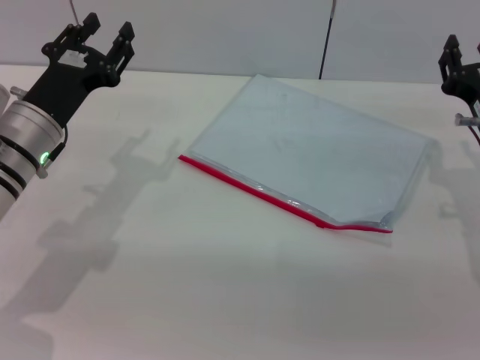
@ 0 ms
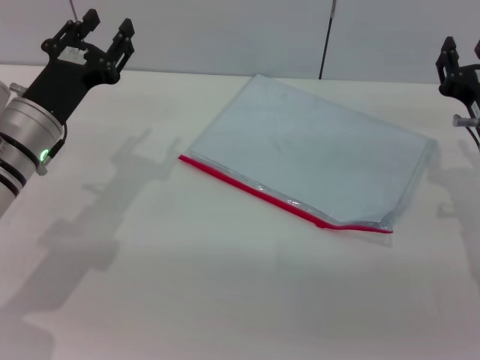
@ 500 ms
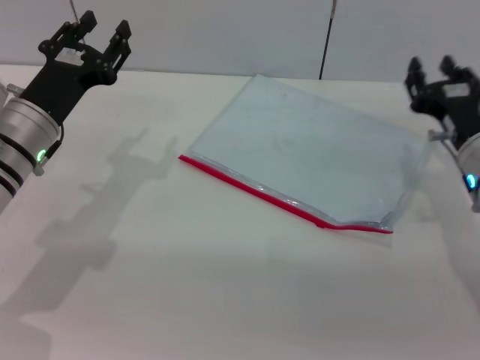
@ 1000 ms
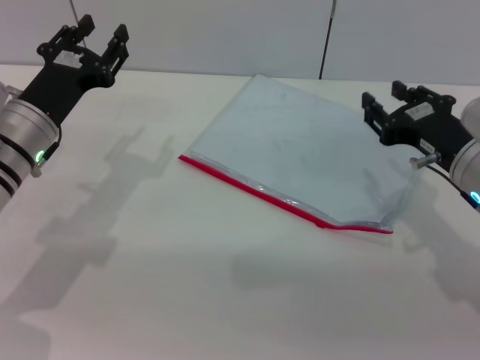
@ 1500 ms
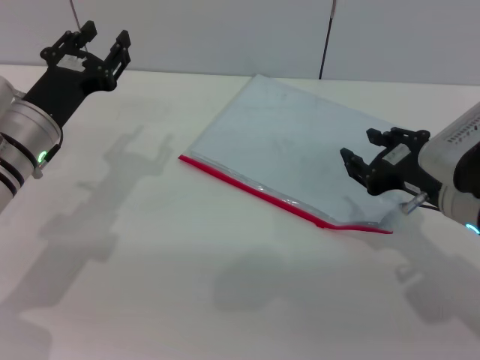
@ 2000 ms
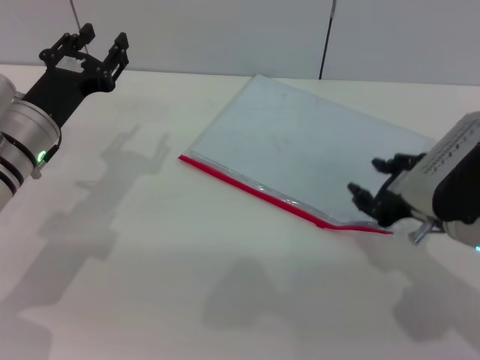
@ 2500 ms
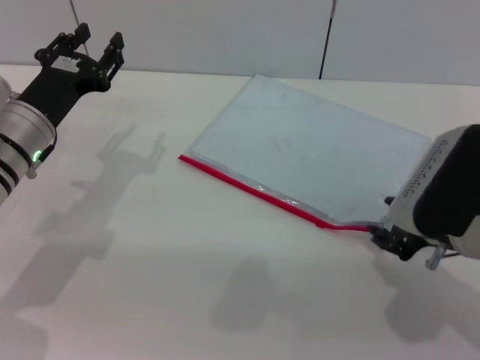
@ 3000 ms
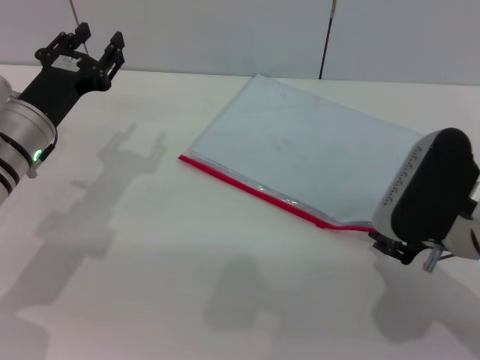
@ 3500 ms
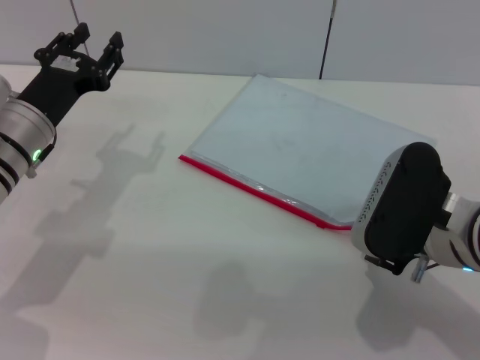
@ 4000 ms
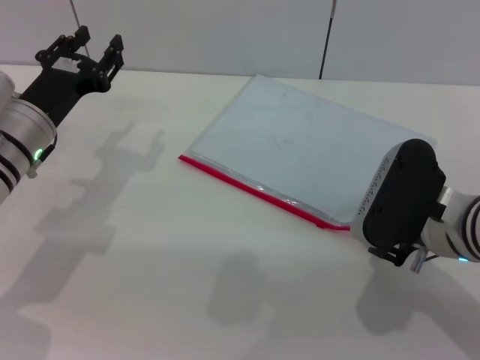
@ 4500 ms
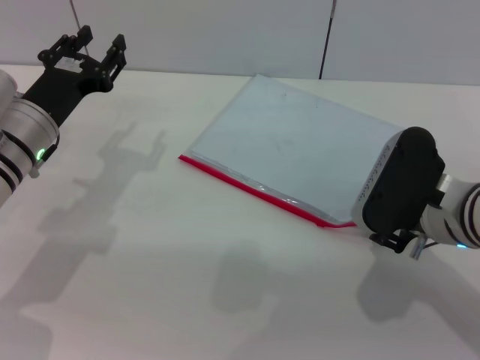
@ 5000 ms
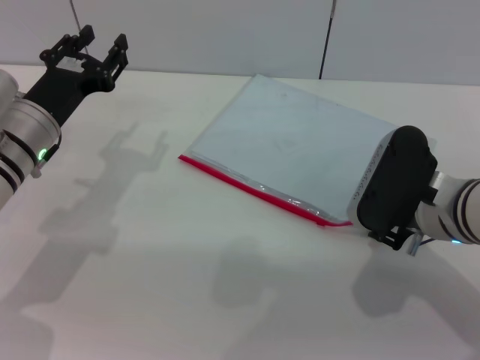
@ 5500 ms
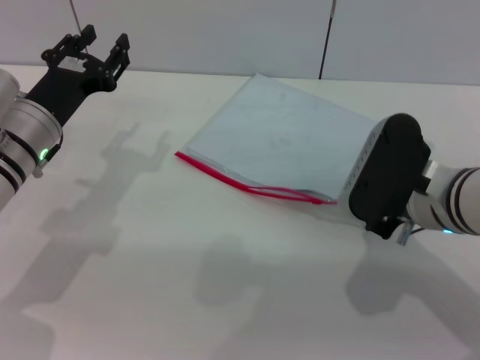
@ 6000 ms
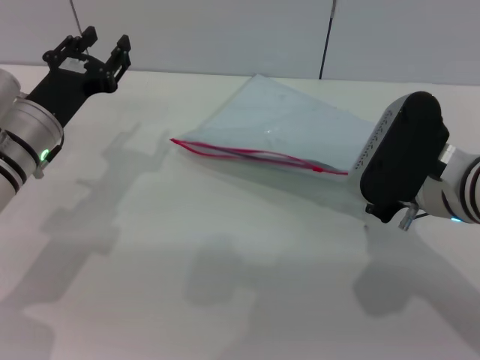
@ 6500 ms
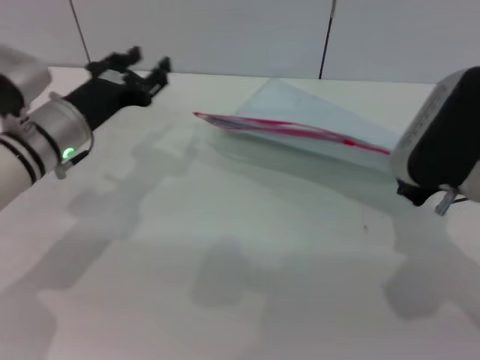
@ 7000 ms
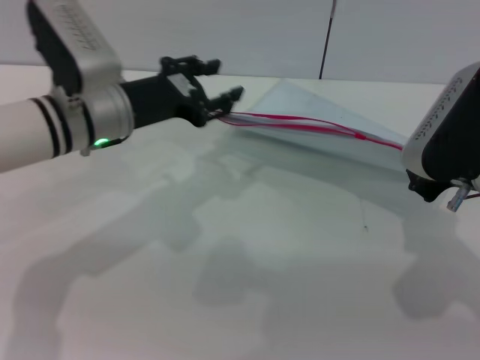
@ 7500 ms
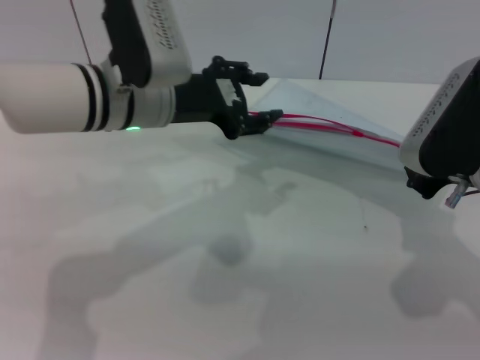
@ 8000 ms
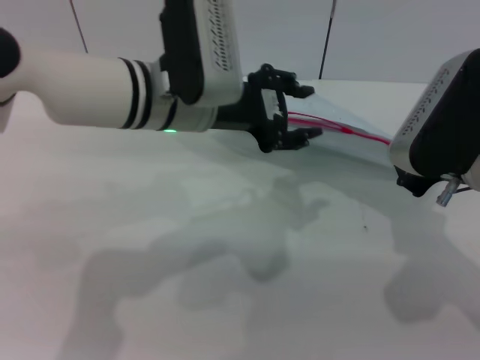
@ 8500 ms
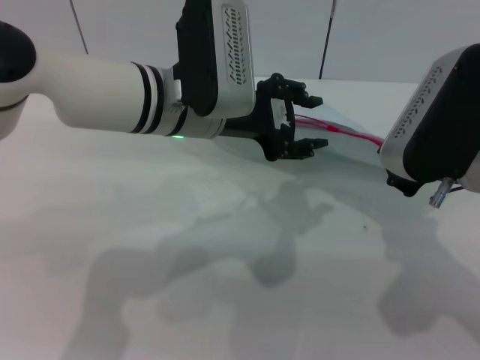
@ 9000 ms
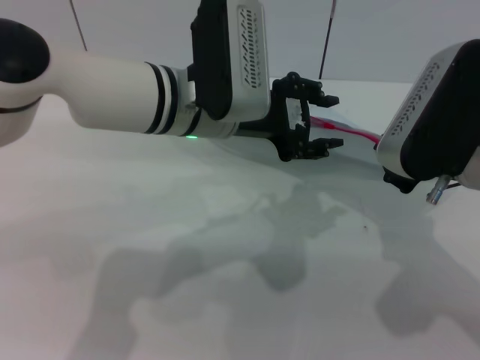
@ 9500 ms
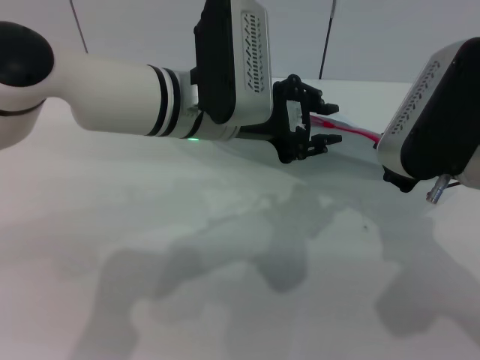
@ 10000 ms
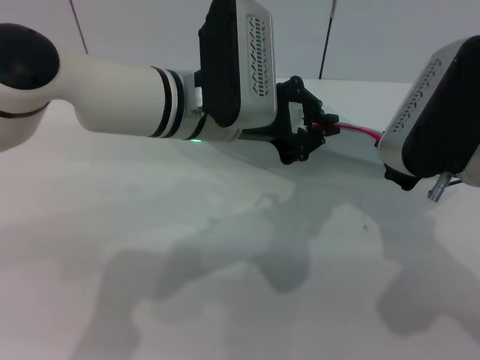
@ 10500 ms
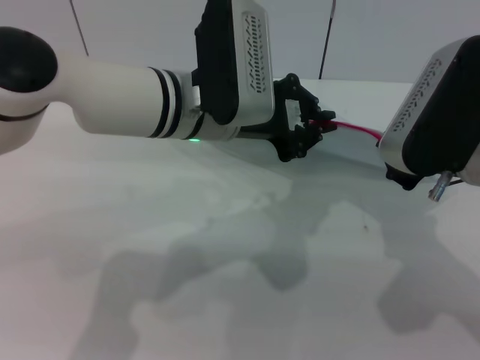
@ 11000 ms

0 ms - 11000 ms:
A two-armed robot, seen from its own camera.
Step, 0 ms - 7000 ms: Pick up the transparent plastic bag with the right gripper.
0 ms - 2000 ms: The right gripper shifts by some 5 cm.
3500 ms - 5500 ms: There are only small adjustments of the grippers.
5500 ms - 7500 ms: The right gripper is displaced upward by roughly 5 cm, and closes up, while the left gripper shifts roughly 5 cm to the right.
7500 ms - 9000 ms: The left gripper moves to the right, roughly 10 cm.
9000 ms - 11000 ms: The left gripper closes up.

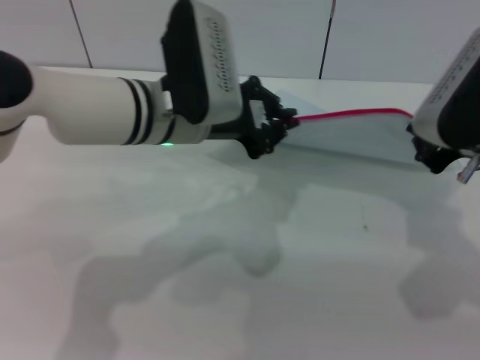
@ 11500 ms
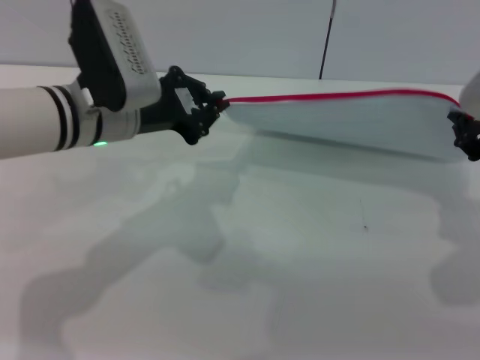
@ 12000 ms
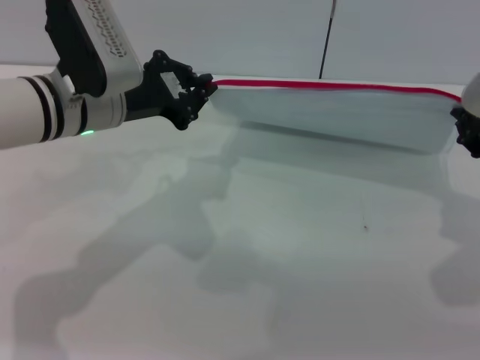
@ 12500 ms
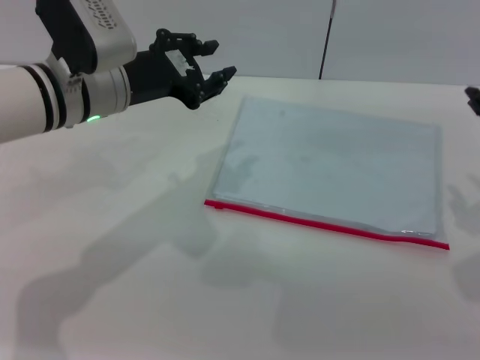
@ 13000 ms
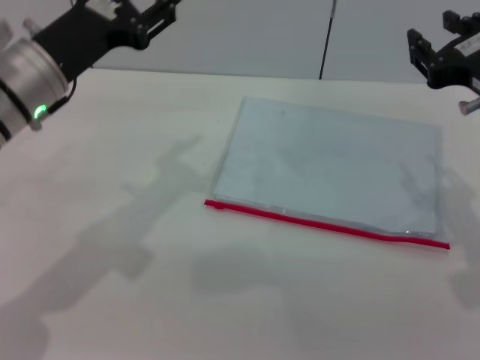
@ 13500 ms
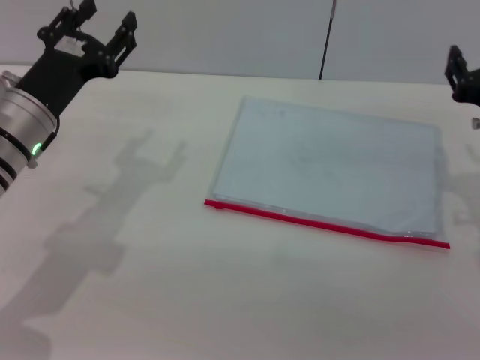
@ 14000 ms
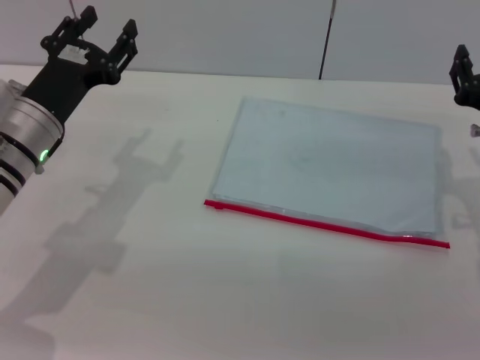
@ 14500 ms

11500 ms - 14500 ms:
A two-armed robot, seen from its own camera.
11500 ms - 13000 ms: The left gripper moves to the left, about 5 cm, and opens. The right gripper moves roughly 5 cm, and opens up.
13000 ms - 14500 ms: The left gripper is displaced downward and to the left by some 10 cm, and opens up, while the right gripper shifts approximately 15 cm downward, and opens its fingers.
